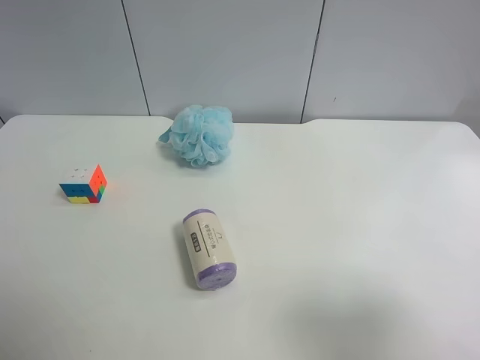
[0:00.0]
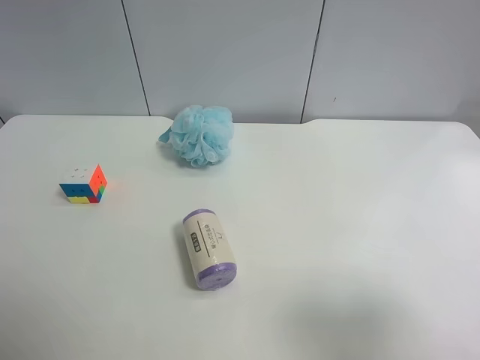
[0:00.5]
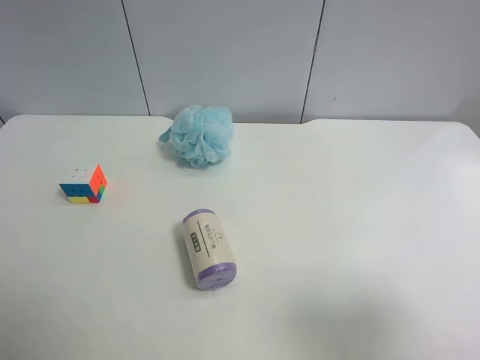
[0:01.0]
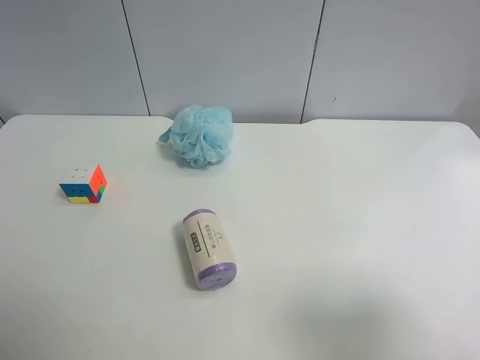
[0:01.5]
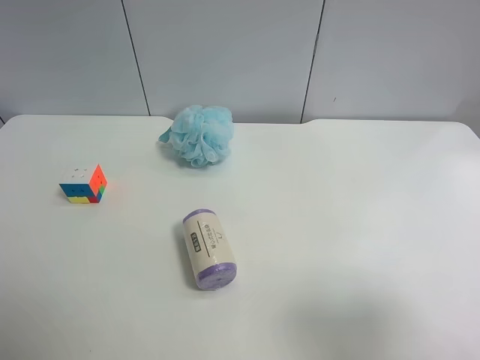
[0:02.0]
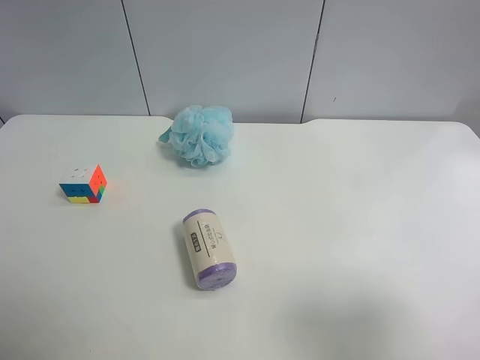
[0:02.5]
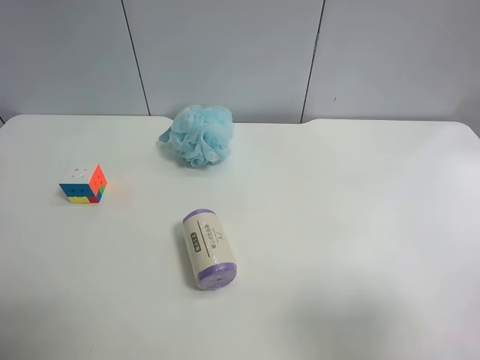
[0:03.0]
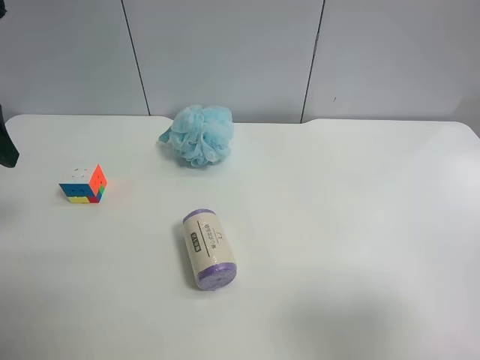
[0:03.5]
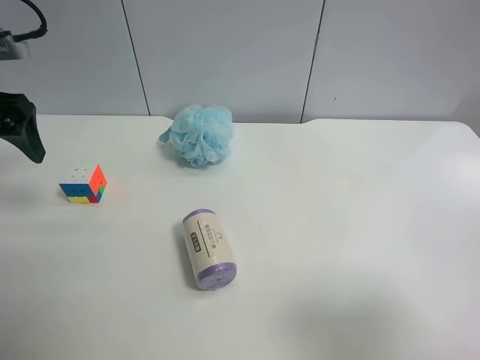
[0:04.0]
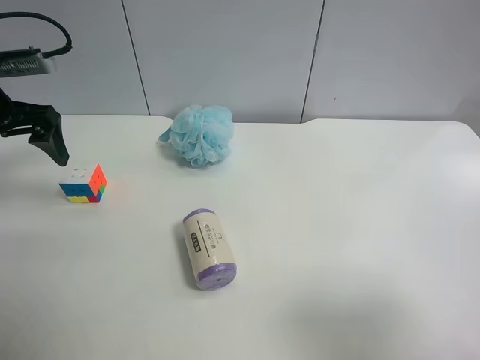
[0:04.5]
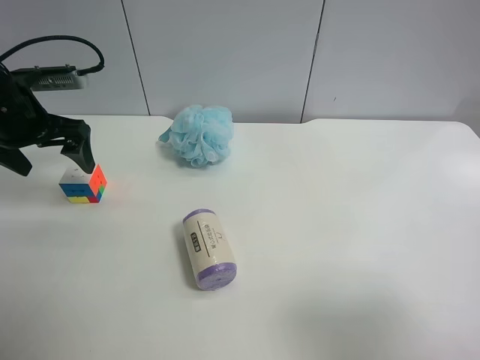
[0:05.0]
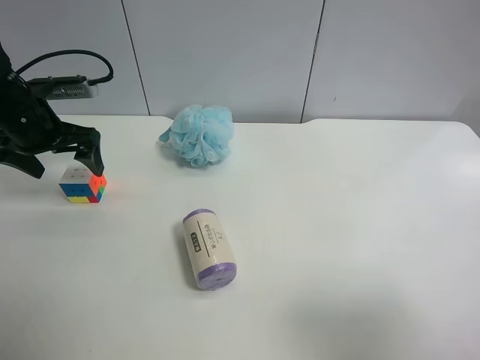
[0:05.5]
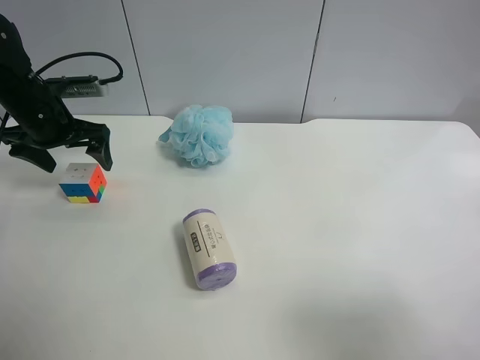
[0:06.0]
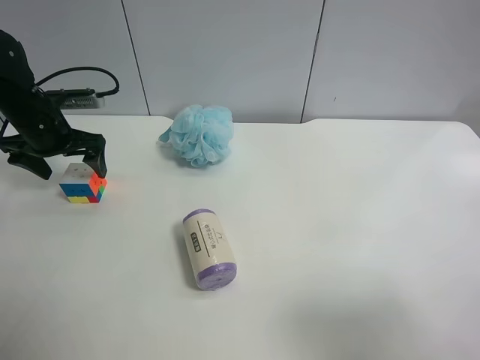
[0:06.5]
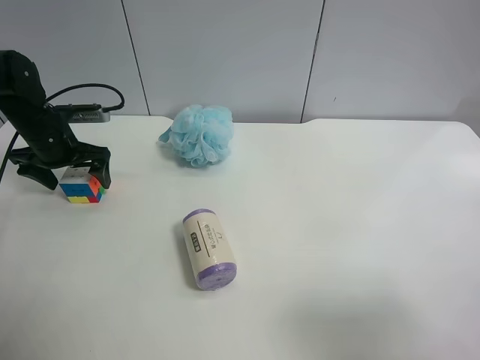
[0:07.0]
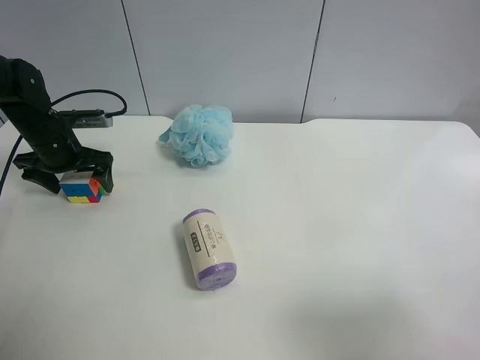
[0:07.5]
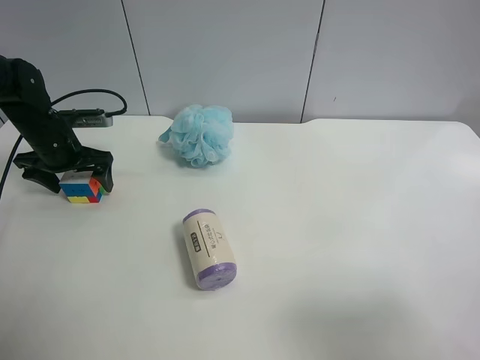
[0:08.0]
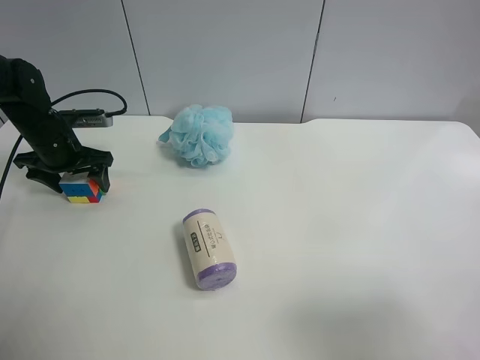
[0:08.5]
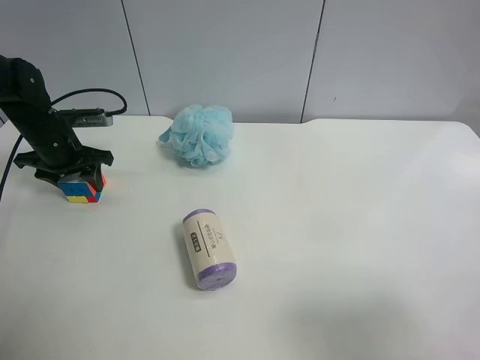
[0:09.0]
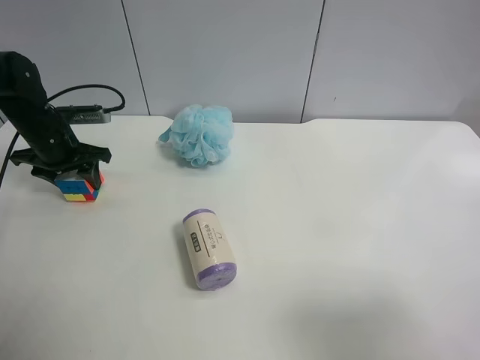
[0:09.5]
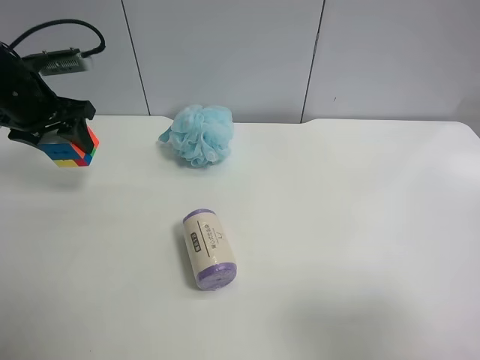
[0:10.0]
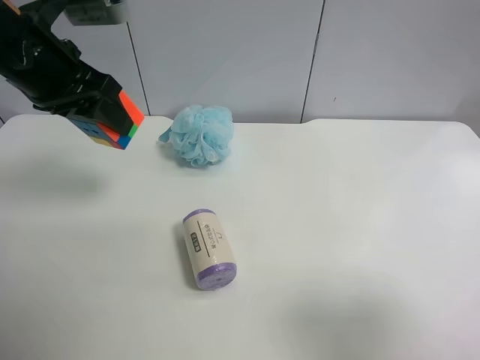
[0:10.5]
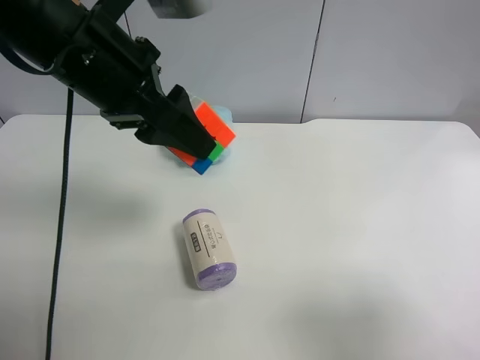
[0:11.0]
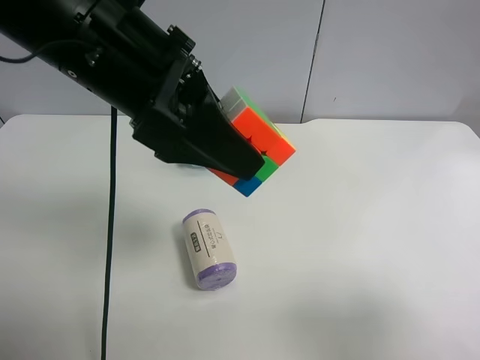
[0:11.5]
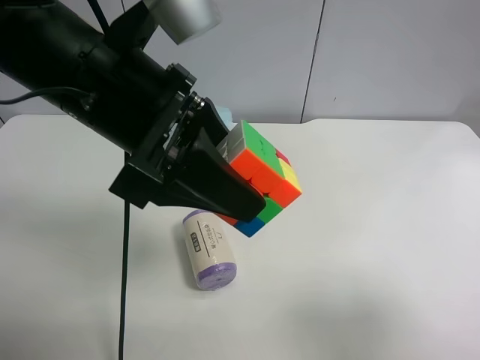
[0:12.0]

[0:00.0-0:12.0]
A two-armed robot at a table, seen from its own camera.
Task of the whole recording: use the left gripper to pick up the item and transfer it from the left gripper to the right gripper.
0:02.0 to 0:04.0: The left gripper is displaced forward by approximately 25 cm.
0:04.0 to 0:06.0: The left gripper heads downward and forward, covering roughly 15 cm.
0:06.0 to 0:08.0: The left gripper is displaced downward by roughly 5 cm.
0:08.0 to 0:10.0: The left gripper goes about 10 cm upward, and closes its fingers.
0:10.0 to 0:12.0: The left gripper is displaced to the right and backward by roughly 25 cm.

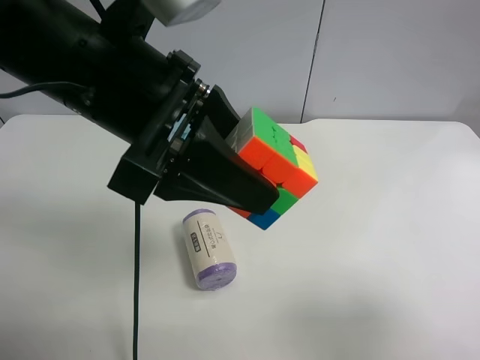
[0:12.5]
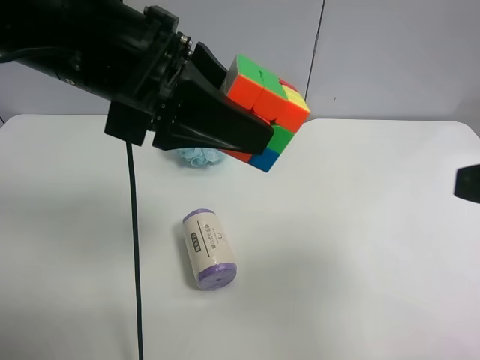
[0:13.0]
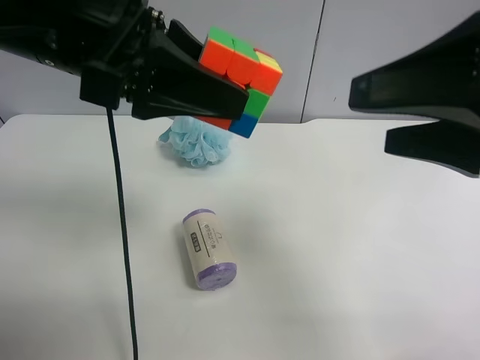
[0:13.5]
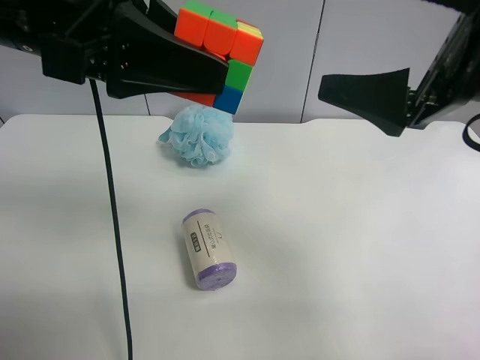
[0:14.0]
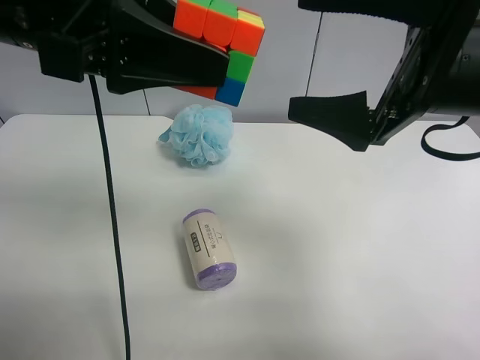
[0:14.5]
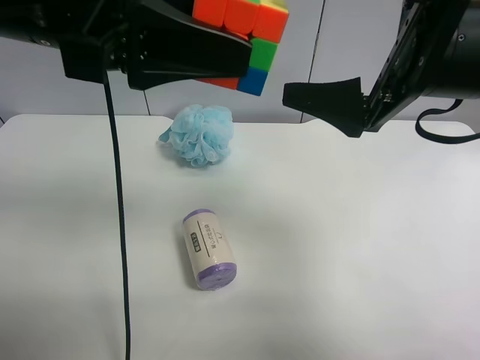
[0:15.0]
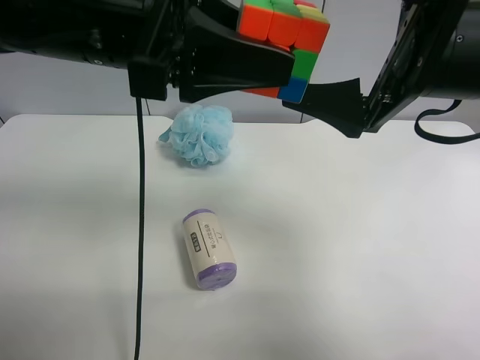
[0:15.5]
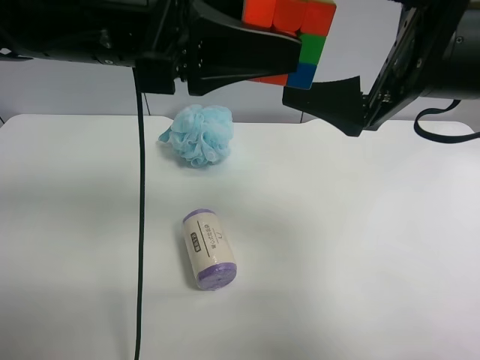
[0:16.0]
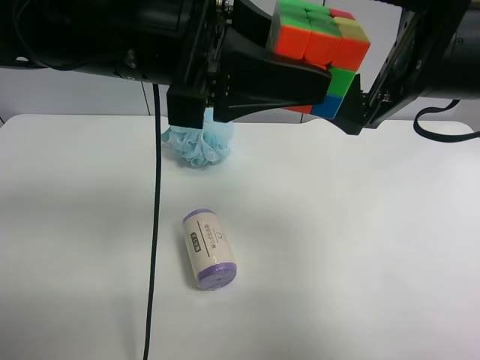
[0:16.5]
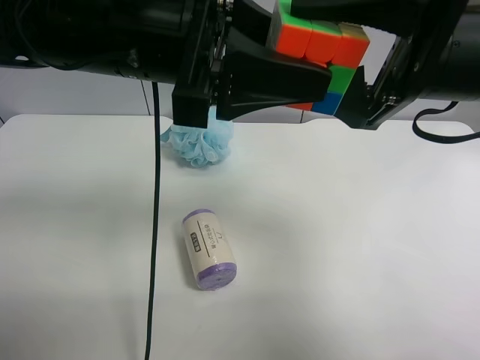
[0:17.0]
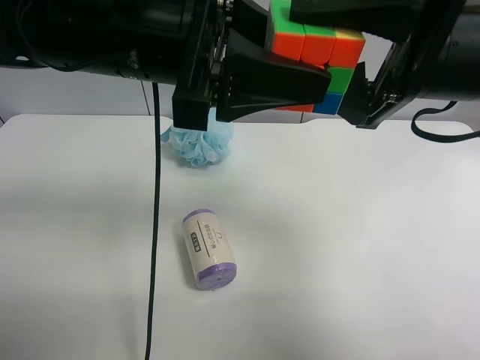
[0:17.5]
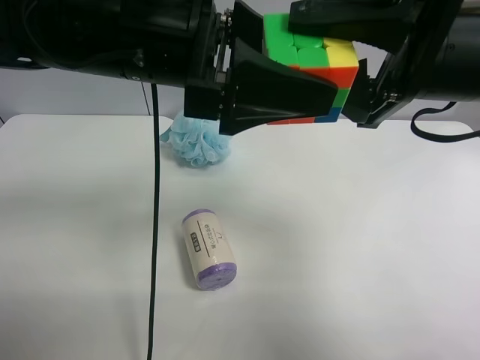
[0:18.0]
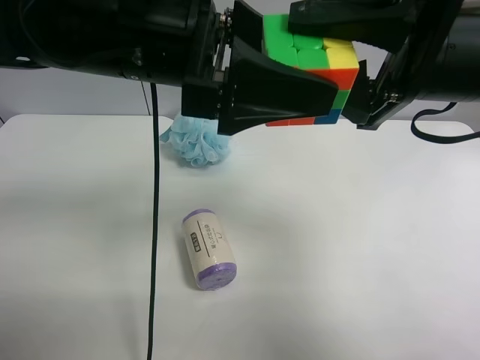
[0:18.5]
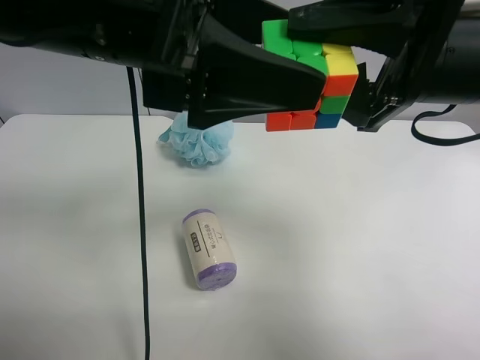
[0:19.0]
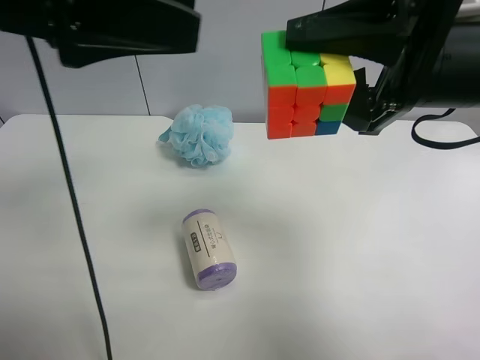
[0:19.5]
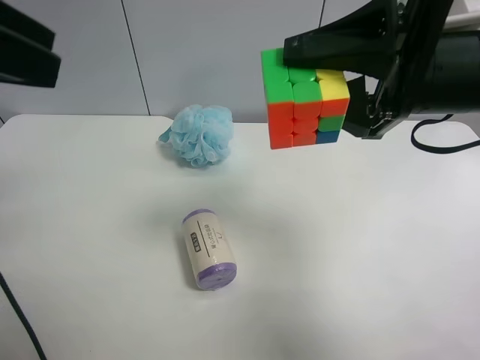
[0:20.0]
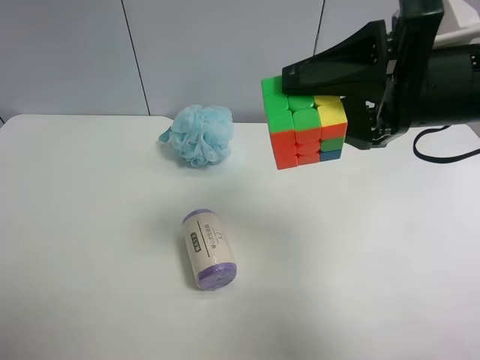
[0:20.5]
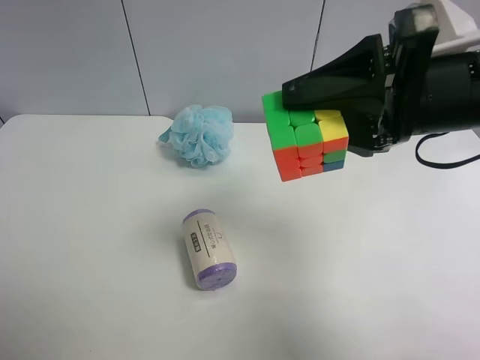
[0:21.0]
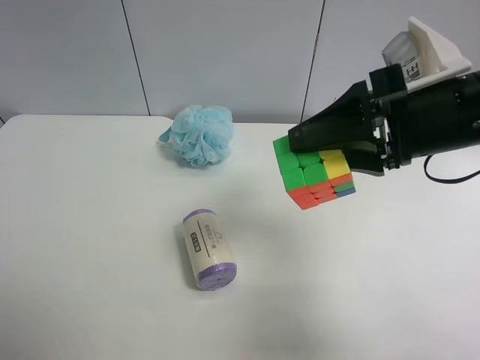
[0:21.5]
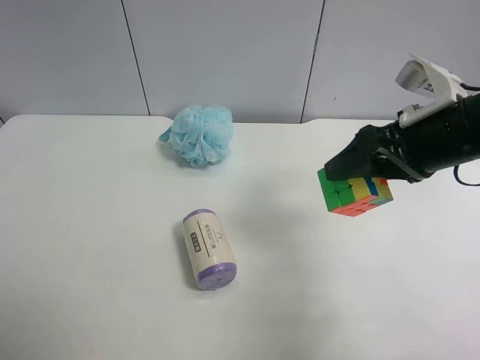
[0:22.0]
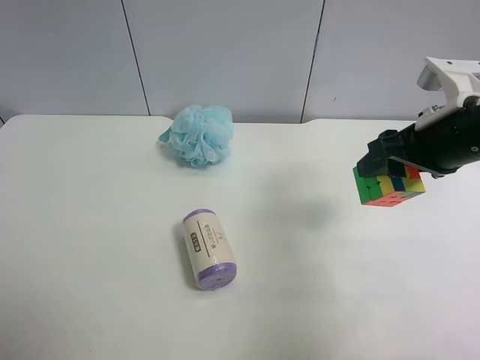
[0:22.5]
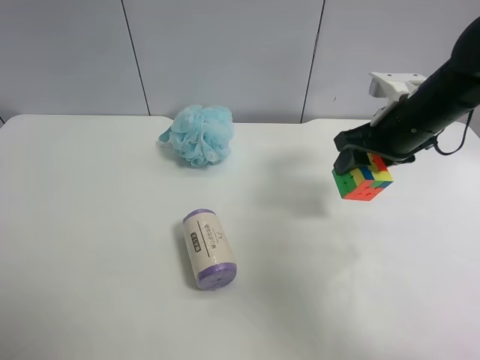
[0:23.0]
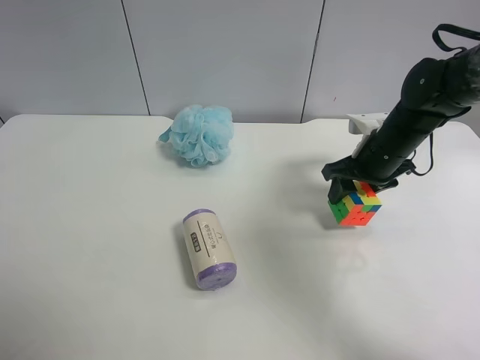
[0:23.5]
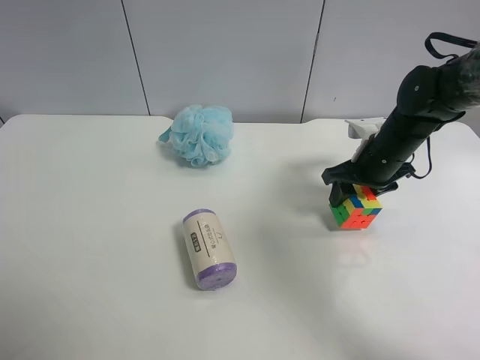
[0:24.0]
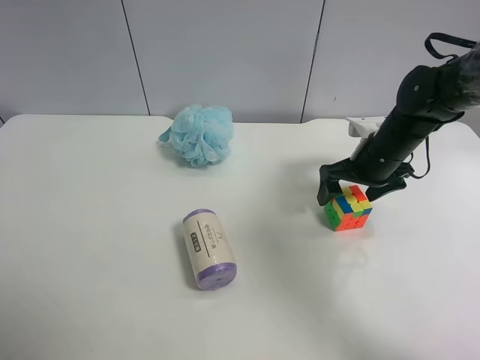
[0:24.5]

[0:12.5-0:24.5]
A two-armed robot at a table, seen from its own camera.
Task of the whole recording: use the left gripper to pick up the item and transfer it from the left gripper to the right gripper.
0:12.5 to 0:14.5: The left gripper moves to the left, some 5 cm, while the right gripper heads forward and to the left, covering about 20 cm.
0:14.5 to 0:16.5: The left gripper shifts roughly 5 cm to the right.
0:16.5 to 0:18.5: The right gripper closes its fingers; the left gripper opens its fingers.
0:18.5 to 0:20.5: The left gripper moves to the left and backward, approximately 25 cm.
0:20.5 to 0:22.5: The left gripper travels downward and backward by about 15 cm, while the right gripper goes some 10 cm to the right and downward.
0:22.5 to 0:24.5: The right gripper moves forward and downward, approximately 15 cm, and opens.

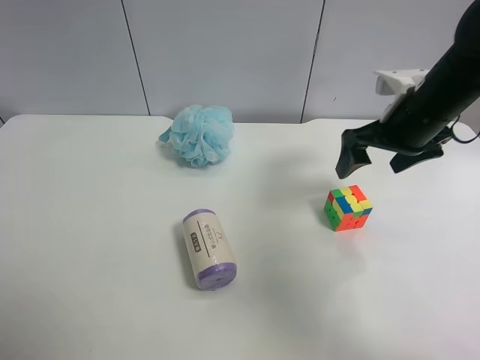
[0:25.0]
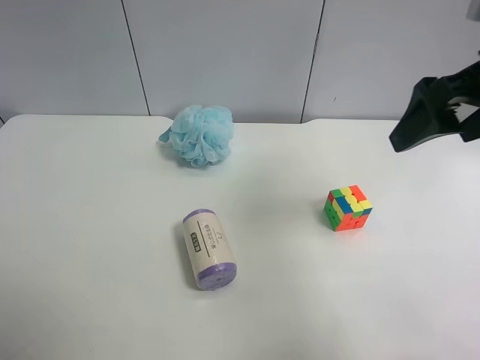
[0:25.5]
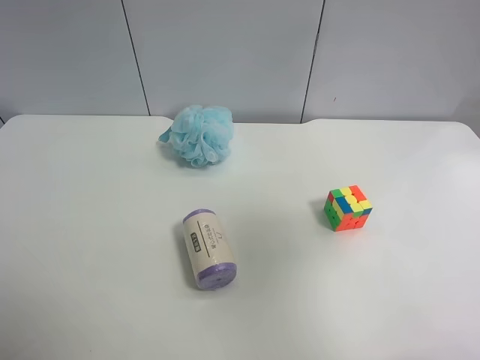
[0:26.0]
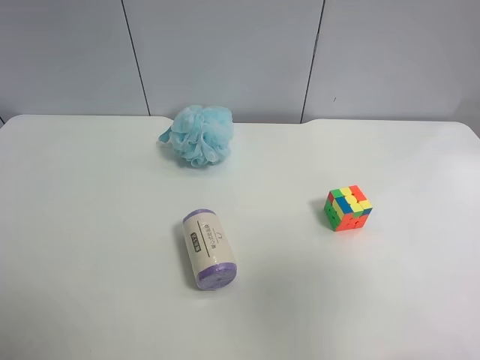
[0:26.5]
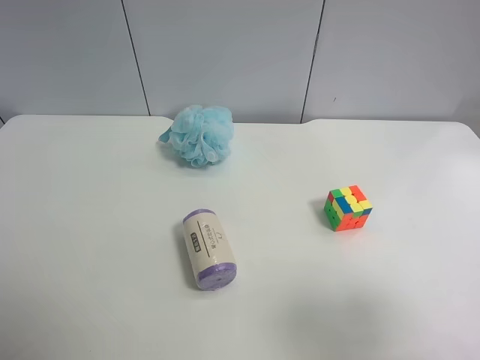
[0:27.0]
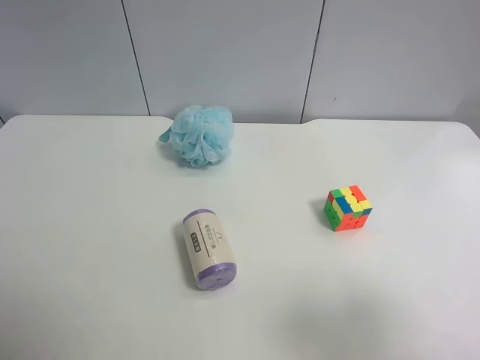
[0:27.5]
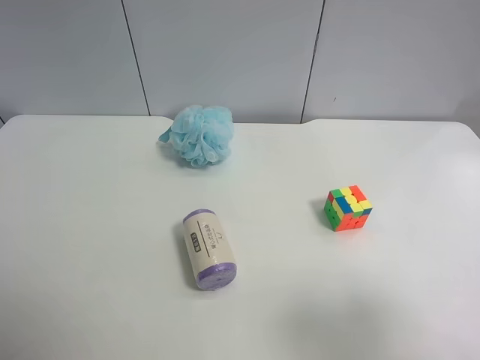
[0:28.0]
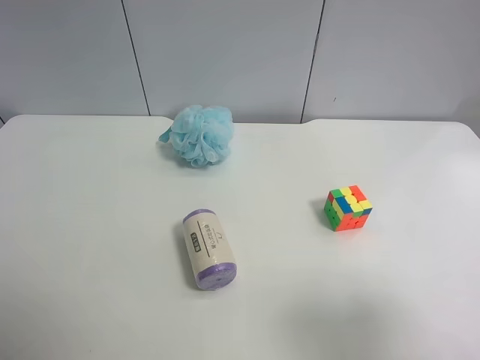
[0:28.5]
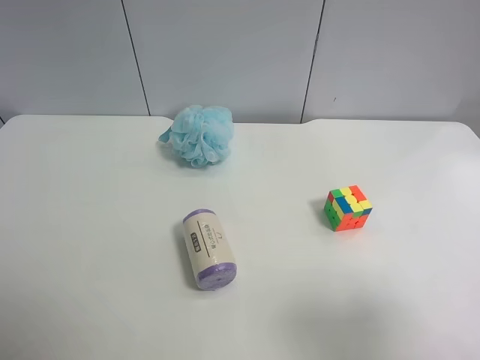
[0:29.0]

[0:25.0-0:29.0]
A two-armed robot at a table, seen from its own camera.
Task of the whole recording: use the left gripper to pick up the item and transfer it from the left gripper to the right gripper.
0:25.0 to 0:27.0: The right gripper goes some 30 cm backward.
